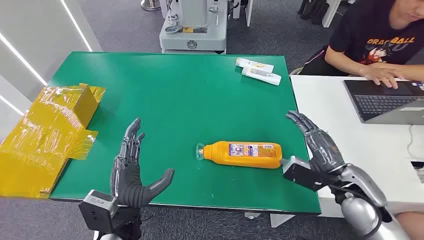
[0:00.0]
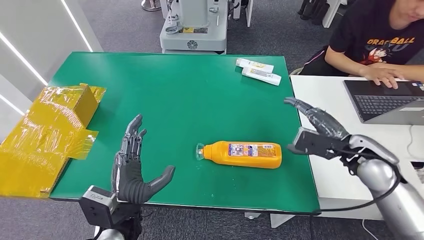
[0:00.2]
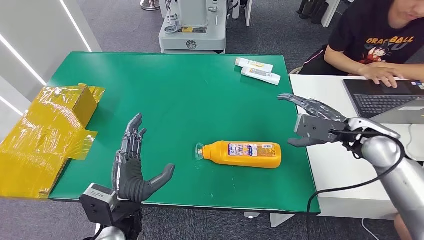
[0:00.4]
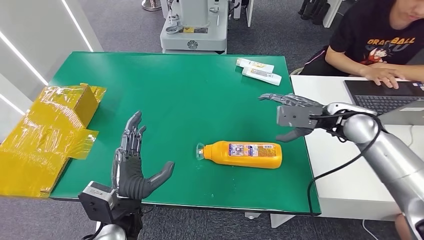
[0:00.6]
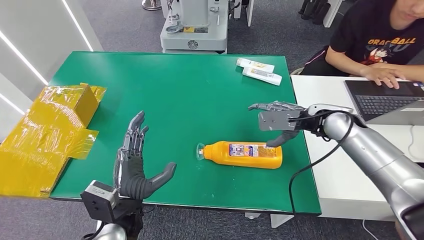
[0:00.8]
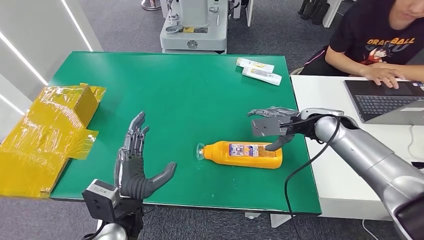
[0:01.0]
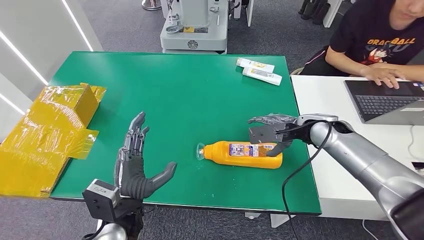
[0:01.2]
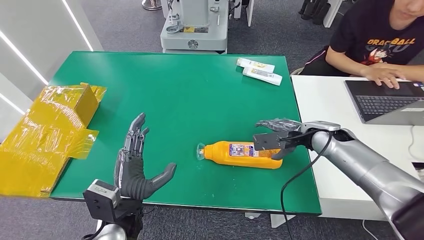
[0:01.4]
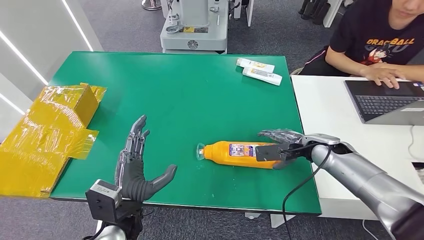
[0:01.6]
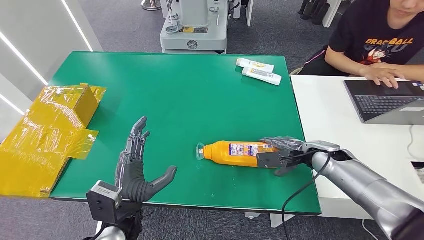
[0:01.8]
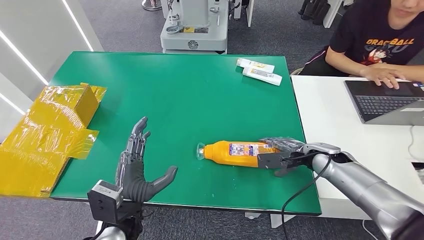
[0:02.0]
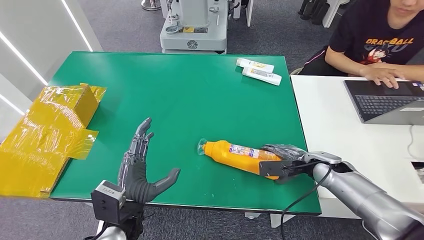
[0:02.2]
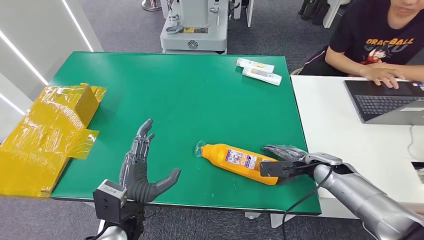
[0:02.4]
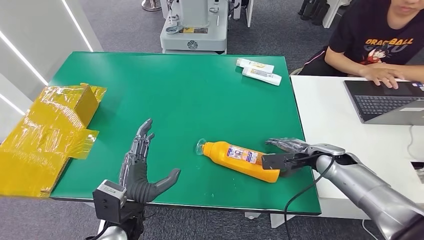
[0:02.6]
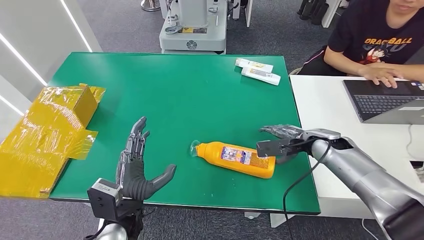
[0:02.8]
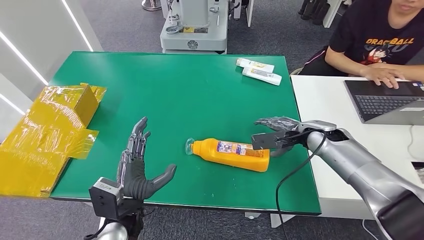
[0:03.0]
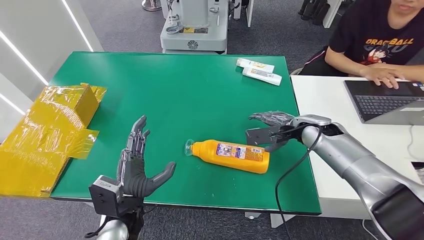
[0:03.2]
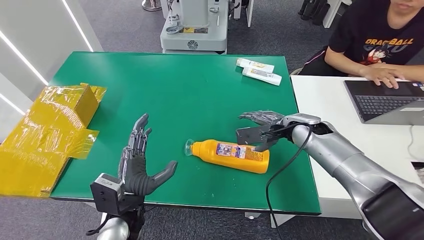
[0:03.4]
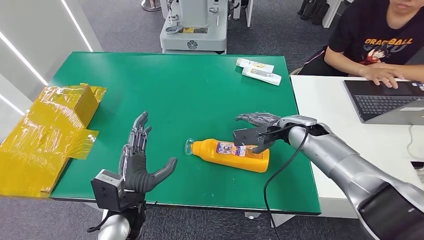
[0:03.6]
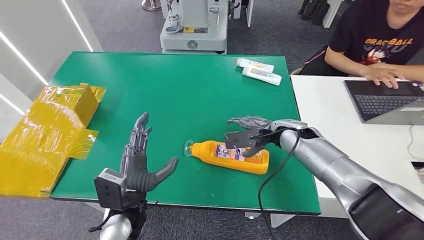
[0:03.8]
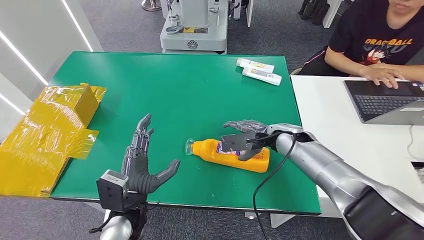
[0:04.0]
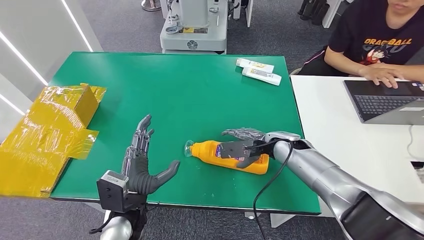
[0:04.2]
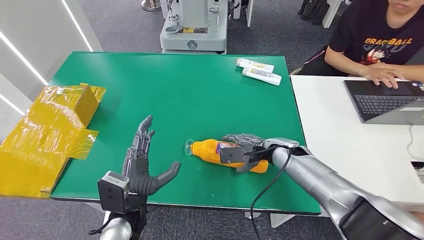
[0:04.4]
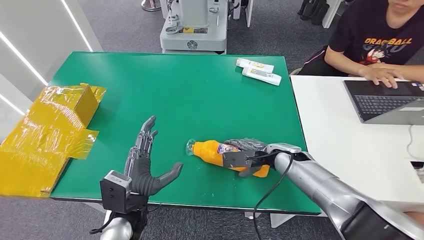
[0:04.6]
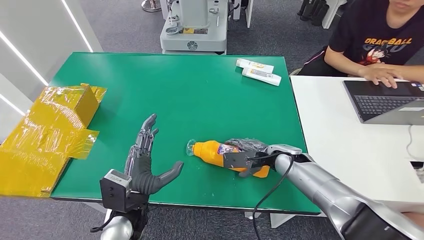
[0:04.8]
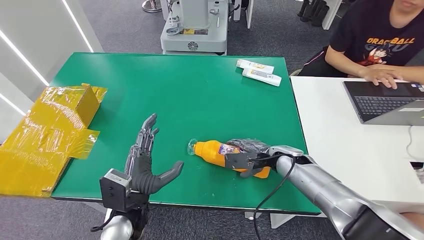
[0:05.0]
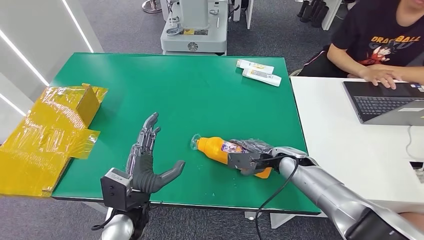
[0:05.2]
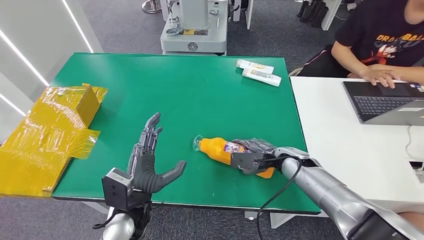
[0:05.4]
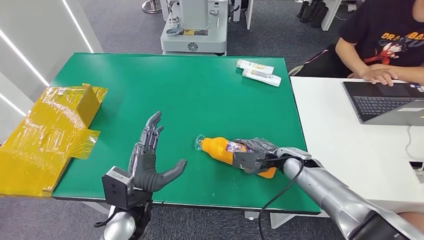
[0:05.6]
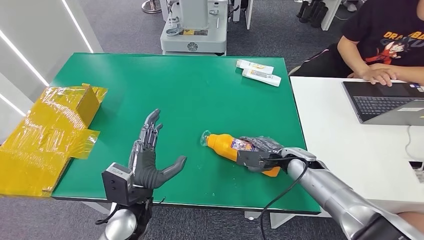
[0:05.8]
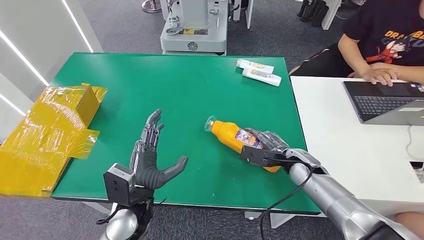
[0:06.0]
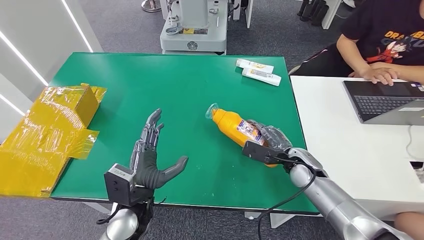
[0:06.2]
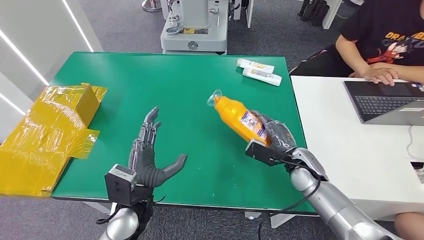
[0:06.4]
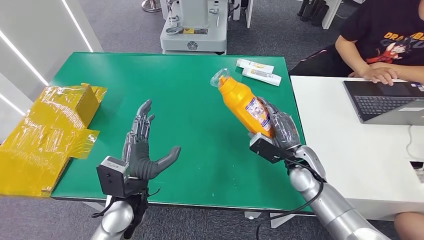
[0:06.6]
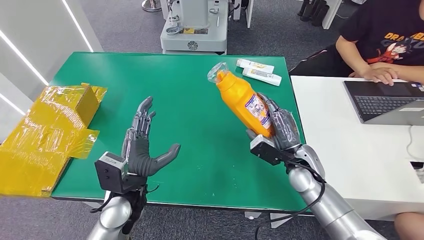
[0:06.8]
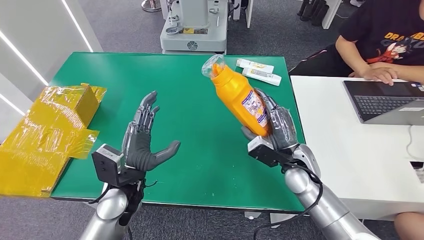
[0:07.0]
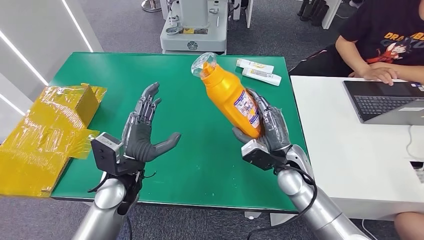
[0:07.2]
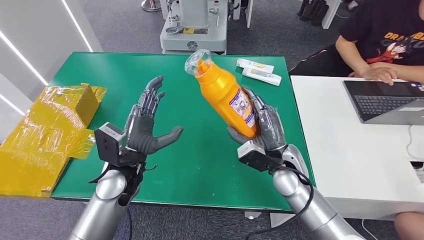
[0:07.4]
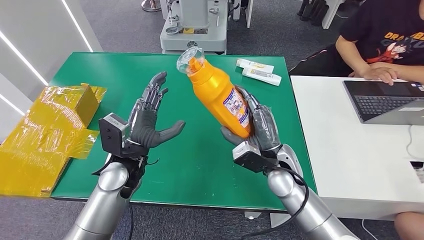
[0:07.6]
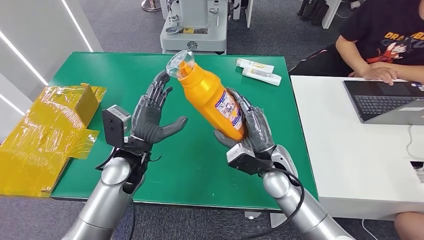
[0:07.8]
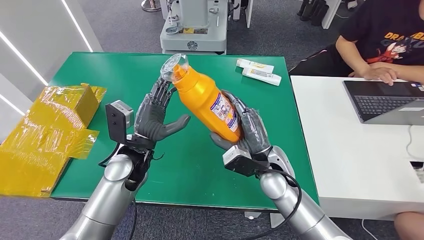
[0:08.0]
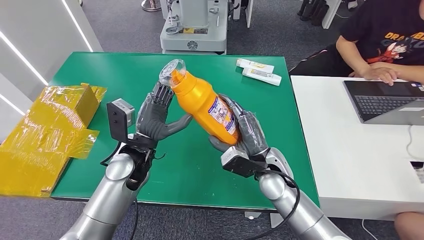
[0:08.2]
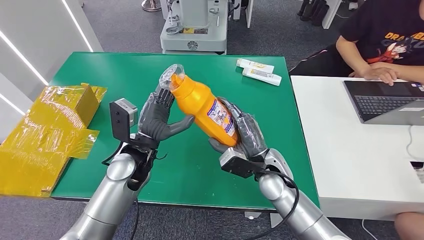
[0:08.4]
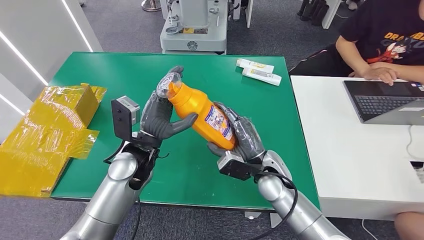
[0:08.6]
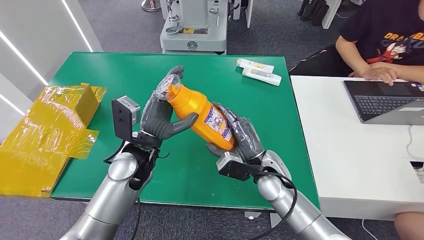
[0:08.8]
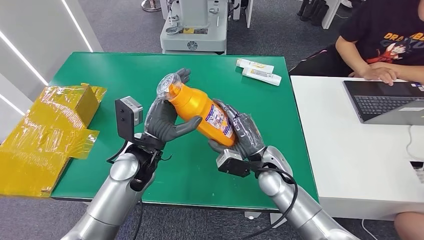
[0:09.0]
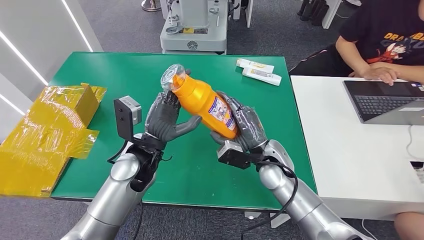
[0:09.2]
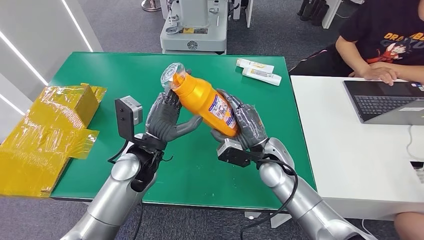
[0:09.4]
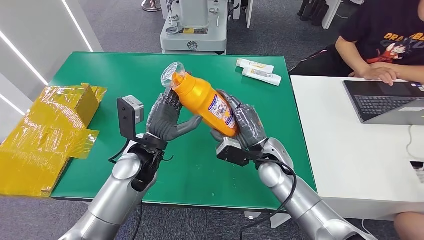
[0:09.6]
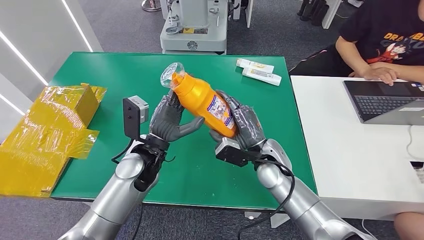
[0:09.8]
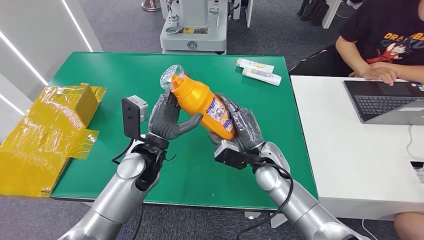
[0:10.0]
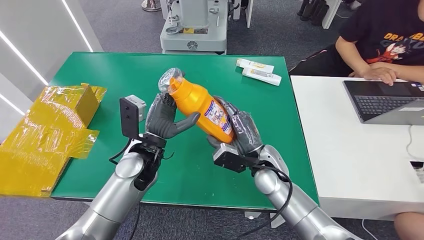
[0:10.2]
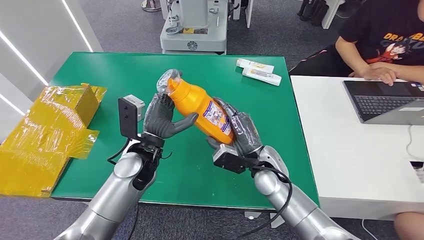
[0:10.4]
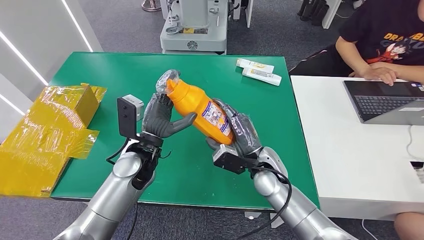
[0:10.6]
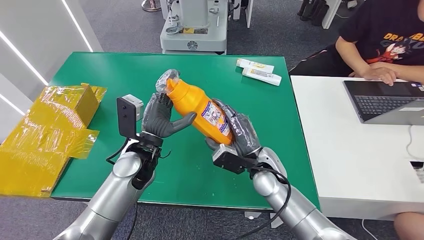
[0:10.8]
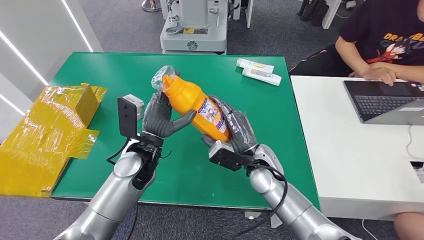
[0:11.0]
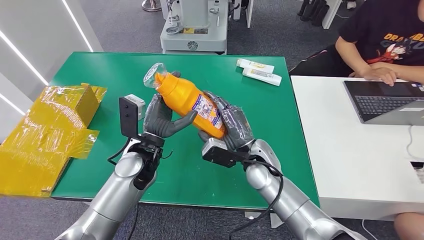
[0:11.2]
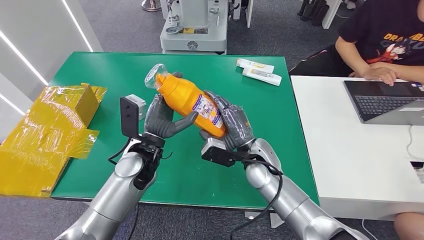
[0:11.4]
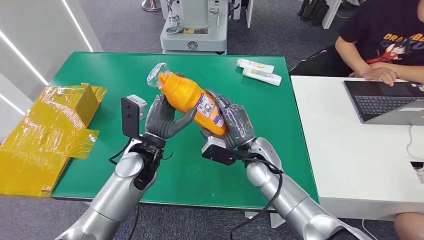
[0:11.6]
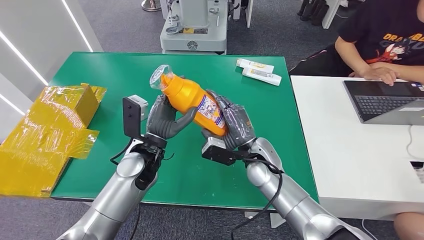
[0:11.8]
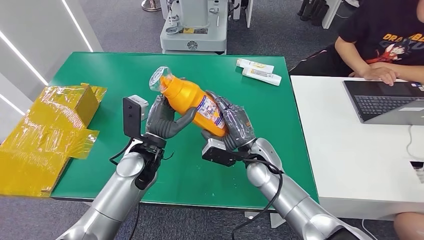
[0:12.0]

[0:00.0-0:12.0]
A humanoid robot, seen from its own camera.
Step, 0:00.0 to 0:06.6: Pick up the bottle from the table.
0:01.6 to 0:03.0: The right hand reaches some 5 cm downward, then returns.
0:03.0 to 0:04.4: The right hand heads to the left, covering approximately 10 cm.
0:04.4 to 0:06.0: The right hand is displaced to the right by about 5 cm.
0:07.6 to 0:12.0: The hands move only a little.

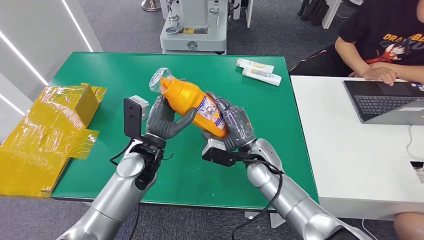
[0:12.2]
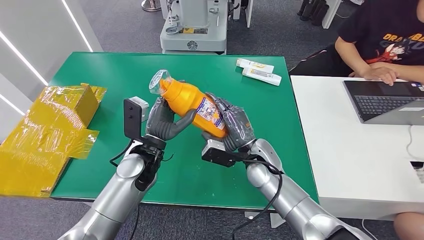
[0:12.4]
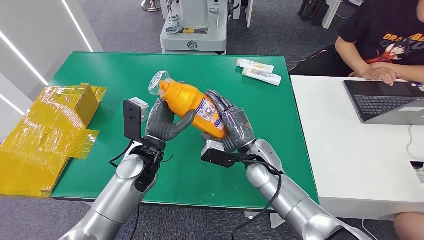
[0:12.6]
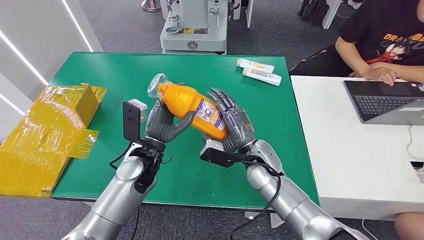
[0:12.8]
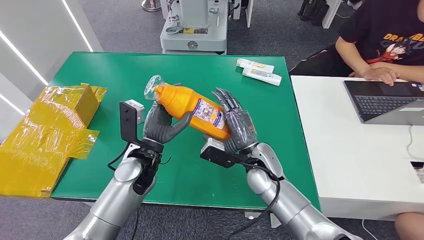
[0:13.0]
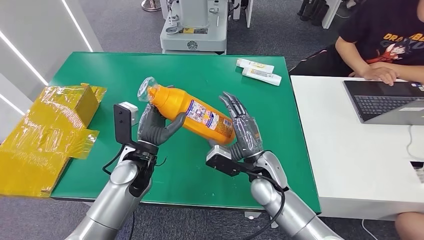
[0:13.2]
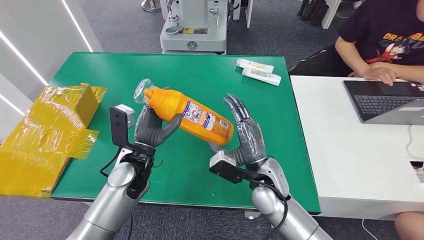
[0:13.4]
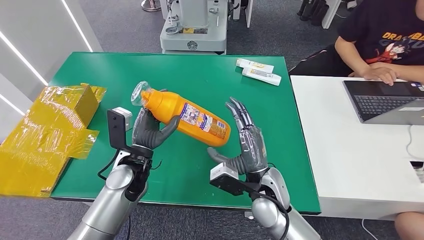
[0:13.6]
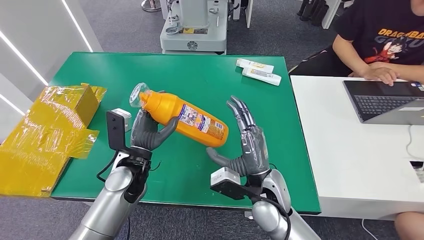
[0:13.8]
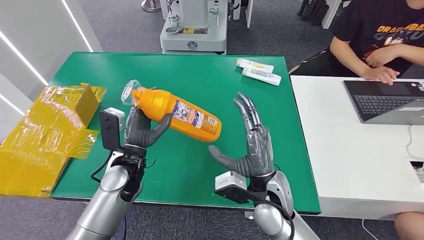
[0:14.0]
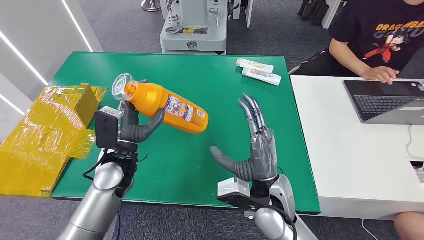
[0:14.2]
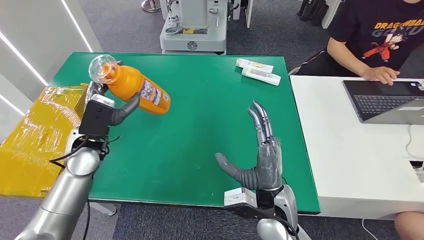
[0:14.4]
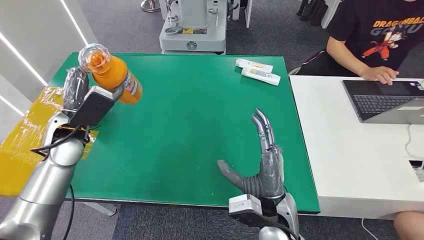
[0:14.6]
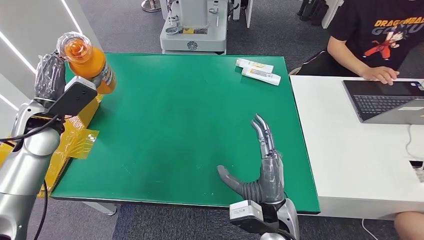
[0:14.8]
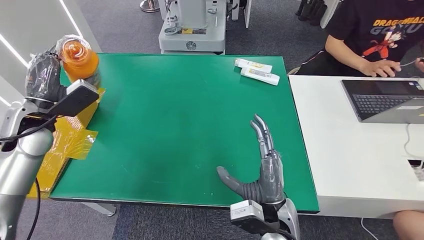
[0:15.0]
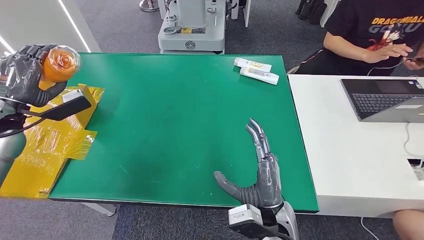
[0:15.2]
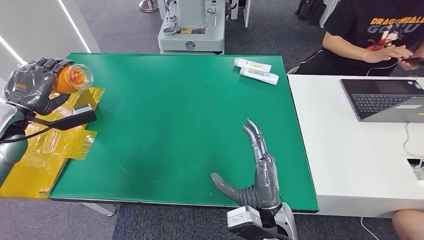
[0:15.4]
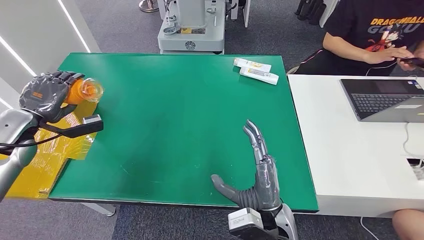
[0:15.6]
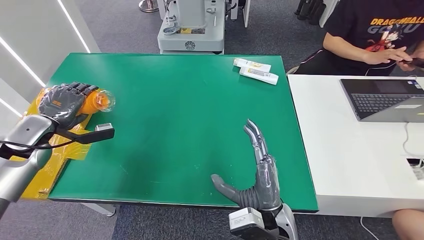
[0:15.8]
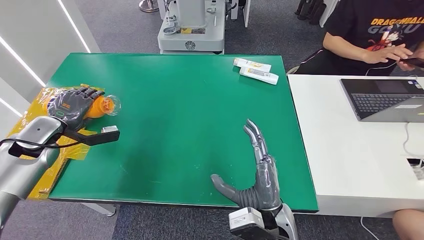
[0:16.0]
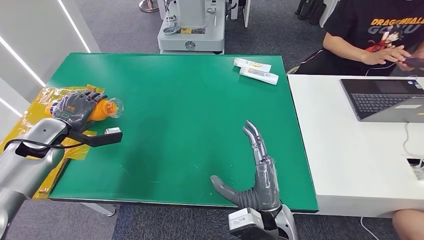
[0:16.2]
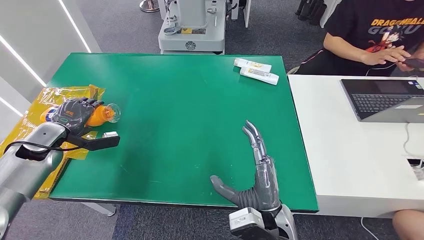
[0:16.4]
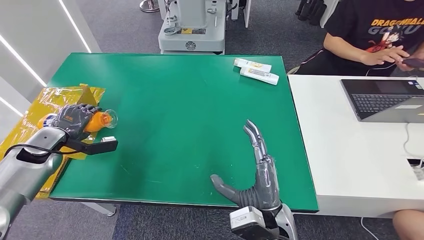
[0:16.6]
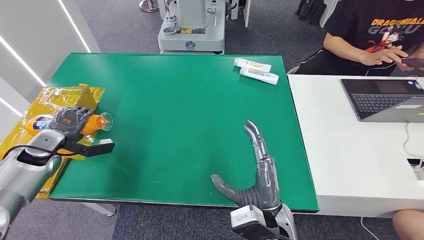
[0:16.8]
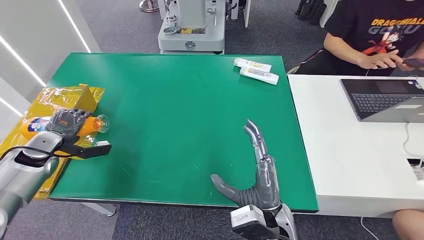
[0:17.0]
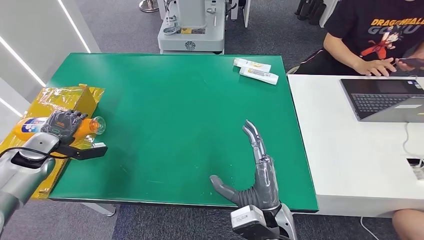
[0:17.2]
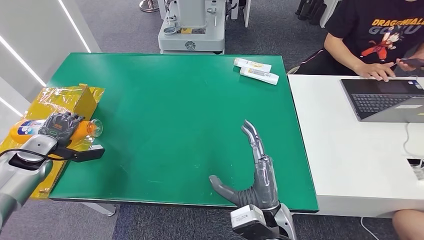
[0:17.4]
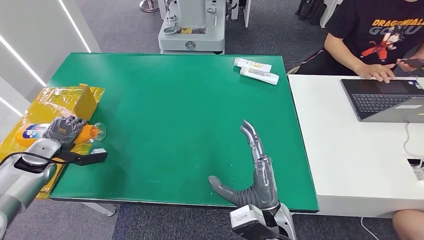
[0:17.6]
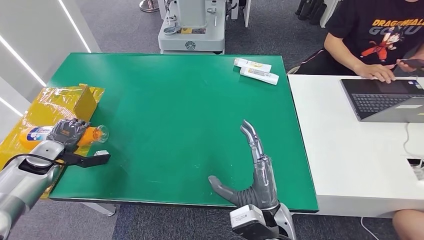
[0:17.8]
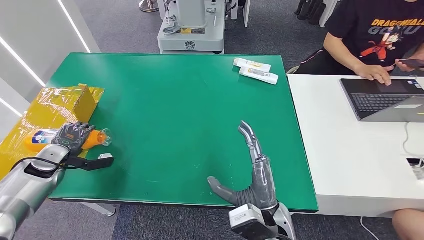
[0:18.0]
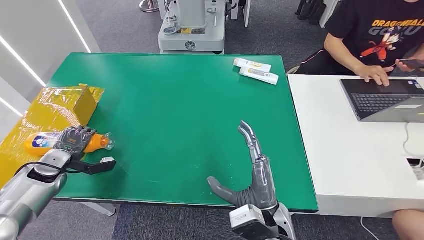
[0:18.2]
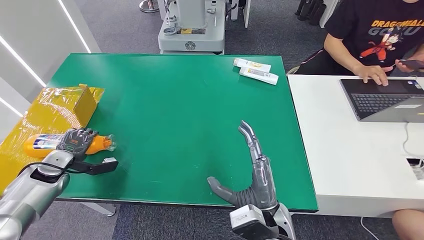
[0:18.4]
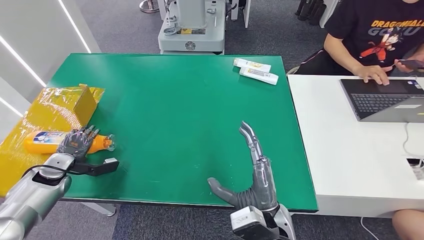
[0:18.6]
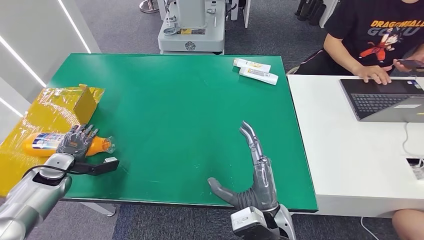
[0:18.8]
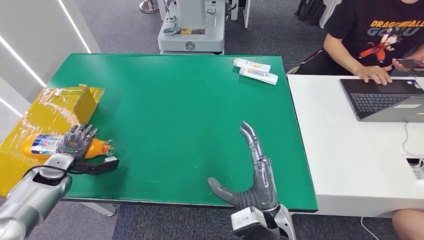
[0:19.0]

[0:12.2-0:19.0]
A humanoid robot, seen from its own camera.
0:12.2 to 0:13.6: The right hand moves backward, roughly 10 cm.
0:15.0 to 0:16.2: The left hand goes about 10 cm downward.
0:16.2 to 0:17.6: The left hand heads downward and to the left, covering about 10 cm.
0:17.6 to 0:19.0: The left hand goes some 5 cm downward.
